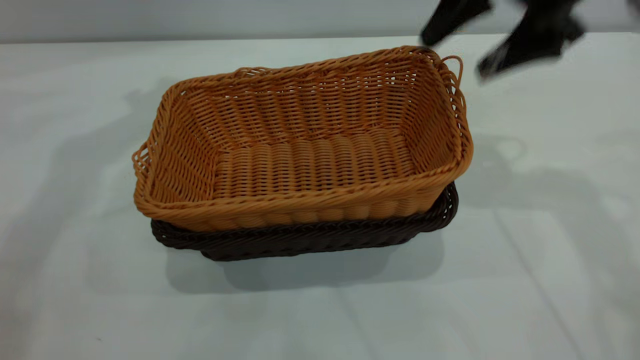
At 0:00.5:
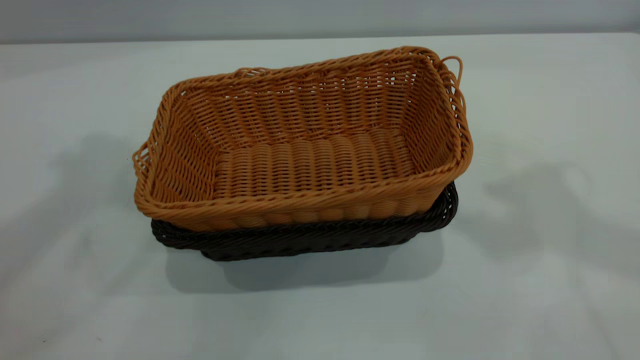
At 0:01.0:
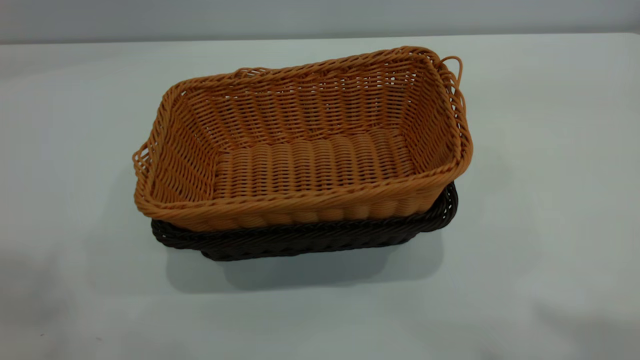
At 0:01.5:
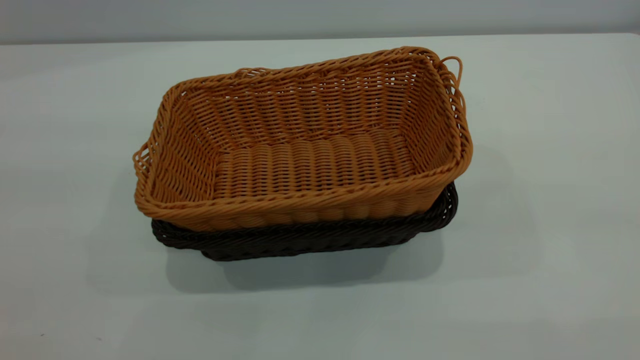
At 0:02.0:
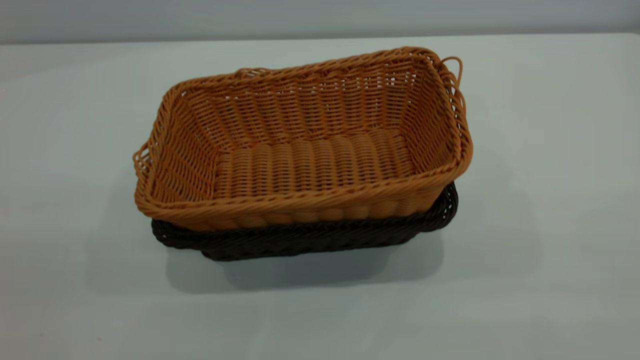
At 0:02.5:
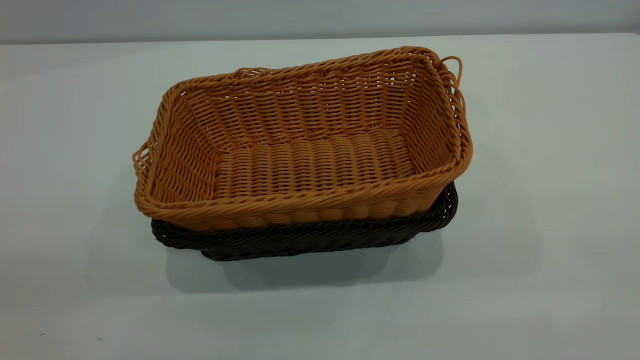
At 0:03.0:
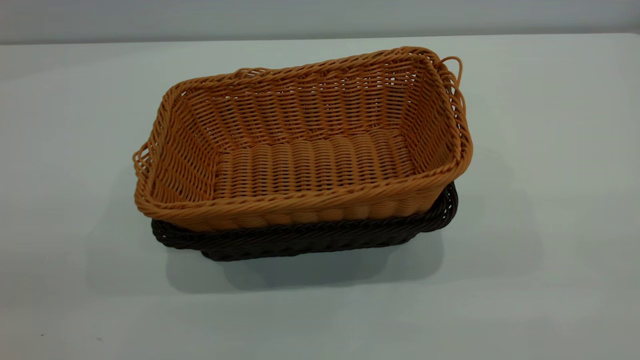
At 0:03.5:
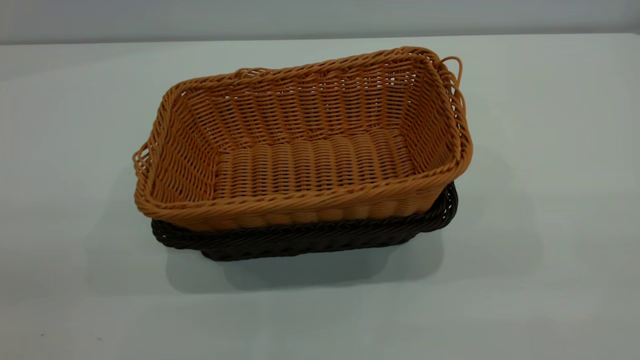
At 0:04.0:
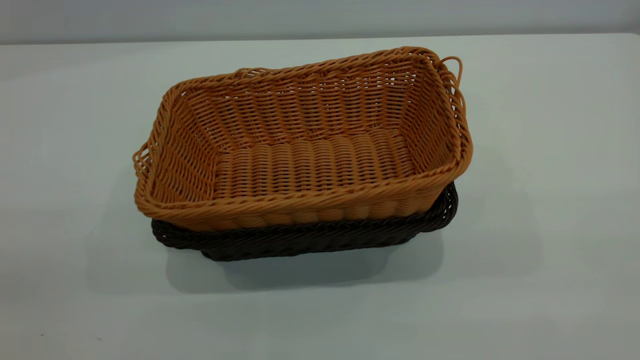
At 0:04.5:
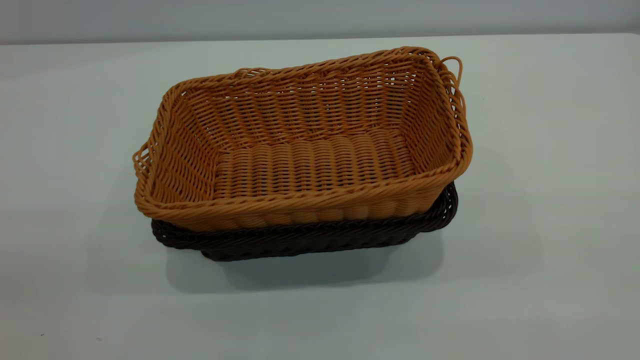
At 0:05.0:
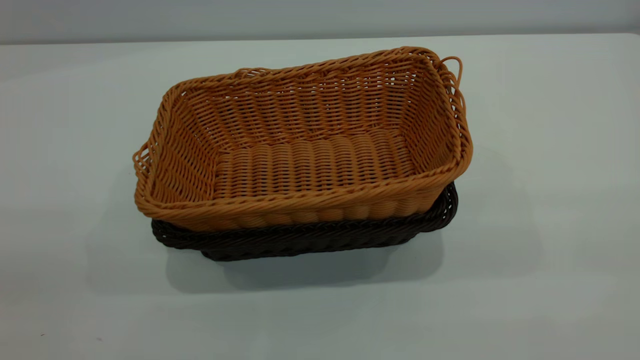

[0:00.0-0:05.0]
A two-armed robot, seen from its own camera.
Task of the whole recording: the left gripper grasp the black basket and place it in the center of the table, the right gripper grasp the brown basket and place it inside the black one.
0:00.0 to 0:02.5: The grippers both shift backward by approximately 40 cm.

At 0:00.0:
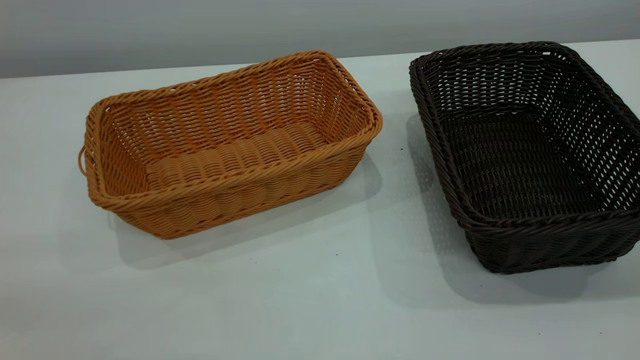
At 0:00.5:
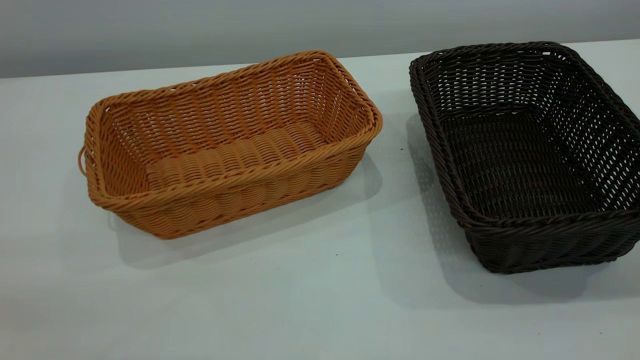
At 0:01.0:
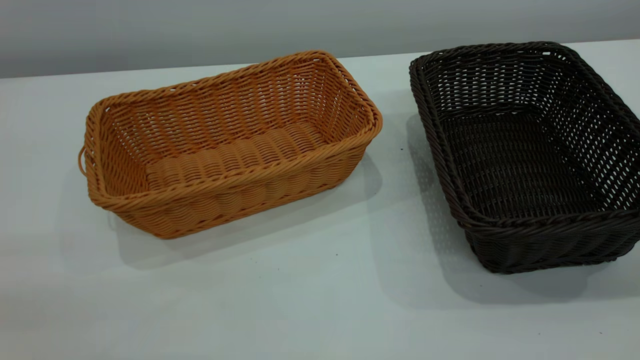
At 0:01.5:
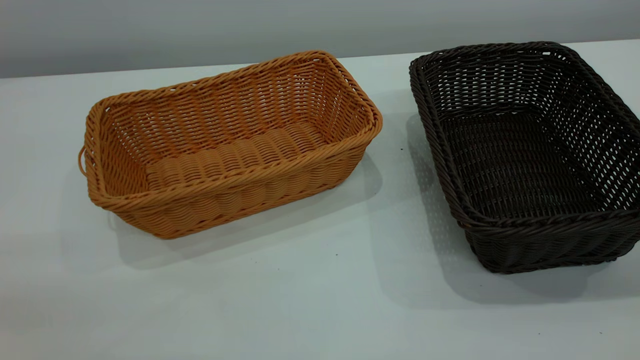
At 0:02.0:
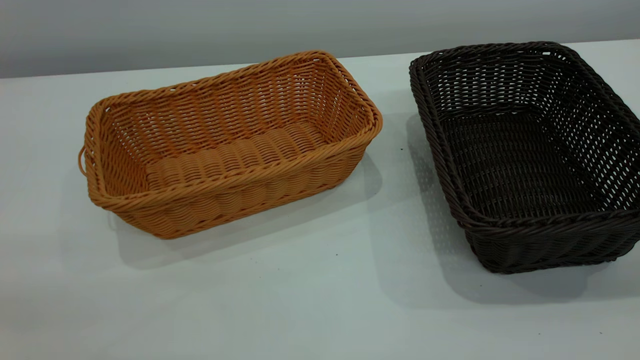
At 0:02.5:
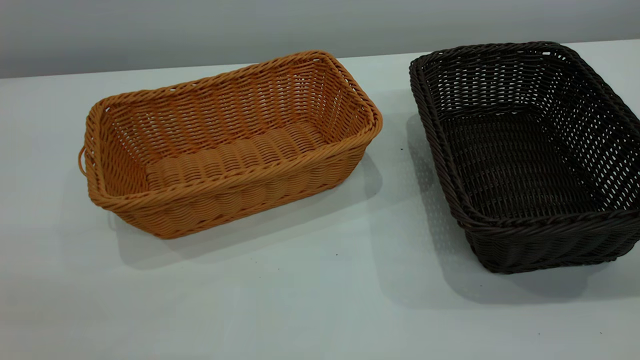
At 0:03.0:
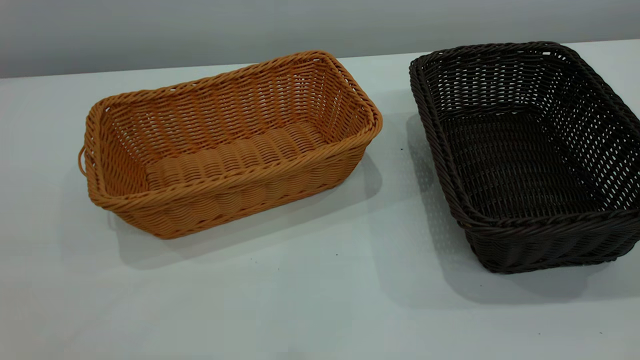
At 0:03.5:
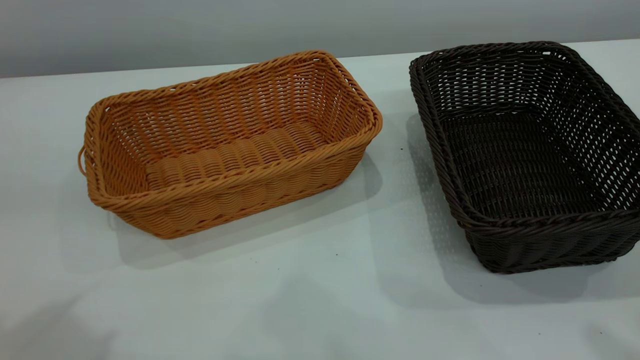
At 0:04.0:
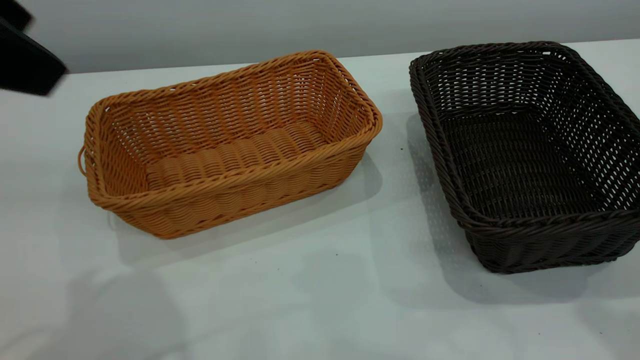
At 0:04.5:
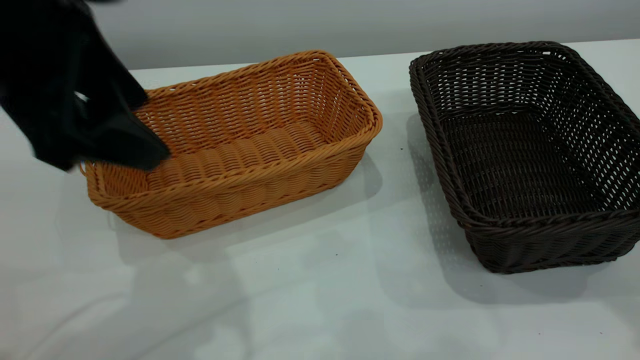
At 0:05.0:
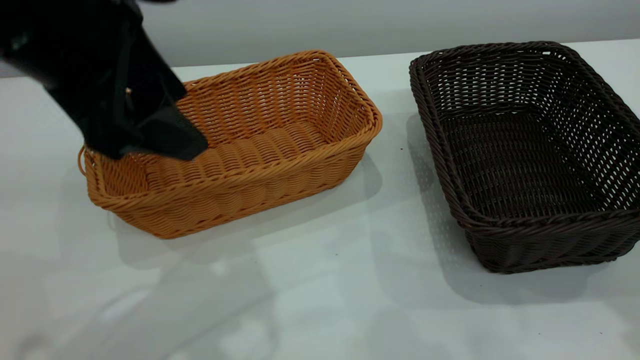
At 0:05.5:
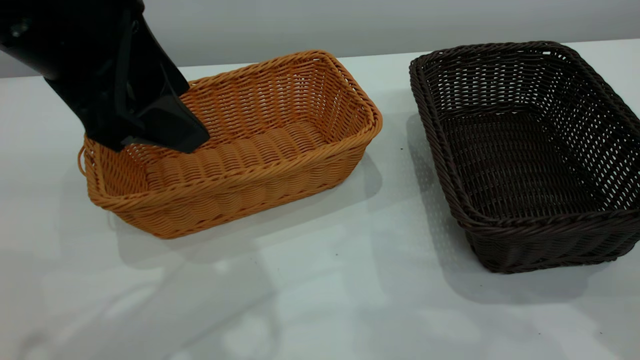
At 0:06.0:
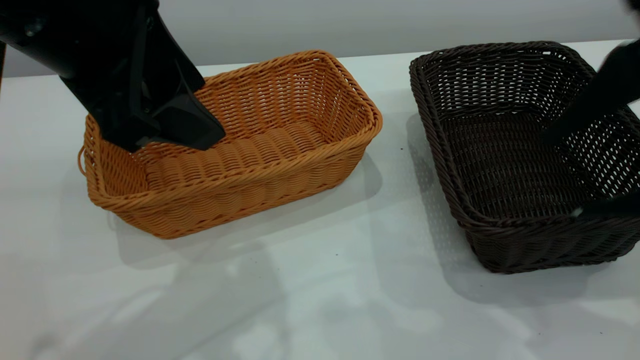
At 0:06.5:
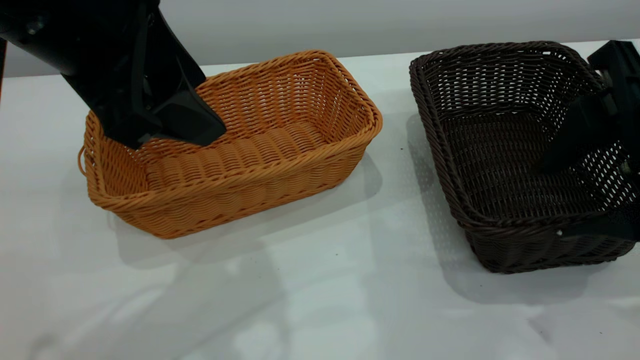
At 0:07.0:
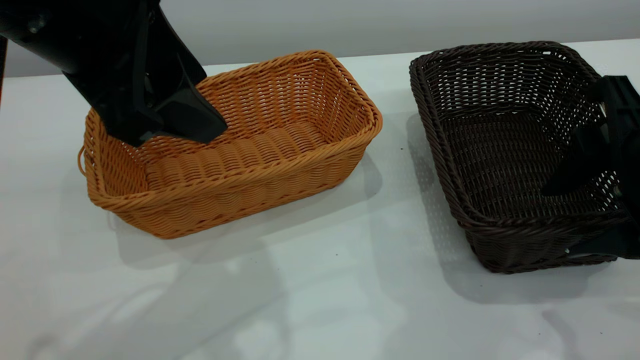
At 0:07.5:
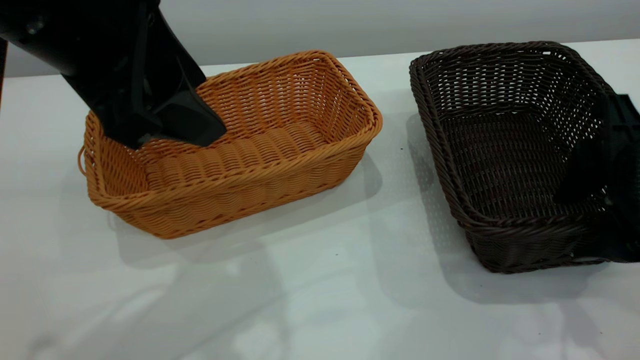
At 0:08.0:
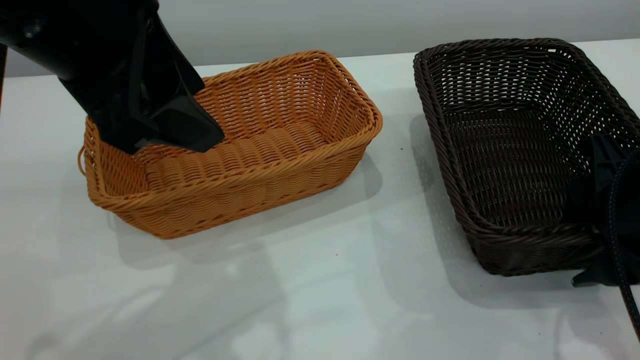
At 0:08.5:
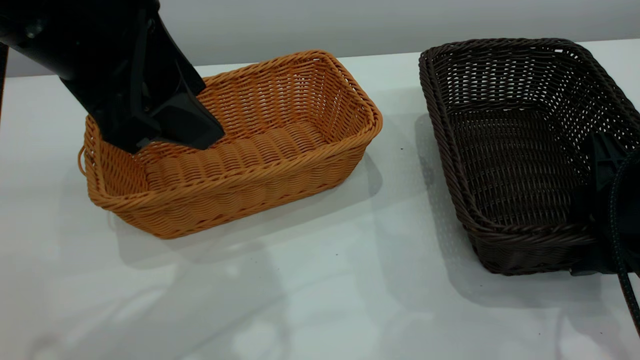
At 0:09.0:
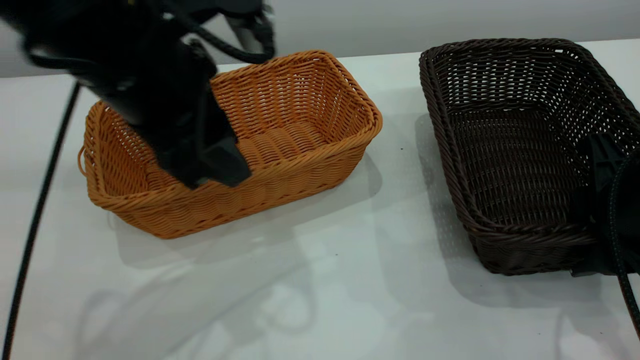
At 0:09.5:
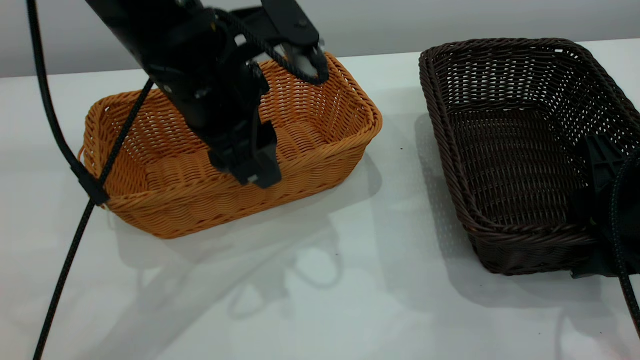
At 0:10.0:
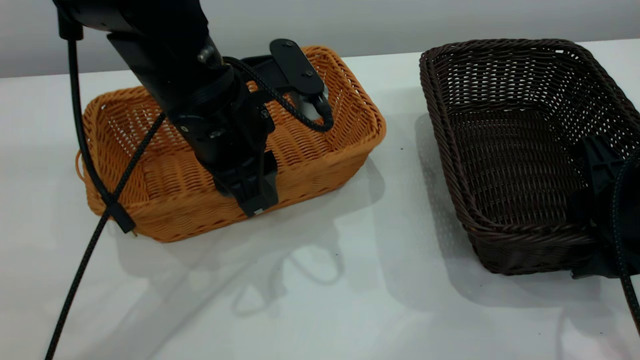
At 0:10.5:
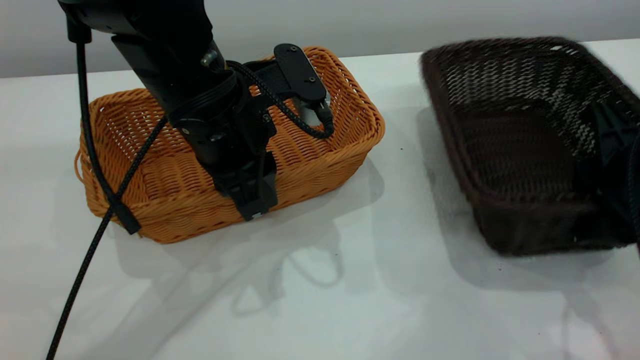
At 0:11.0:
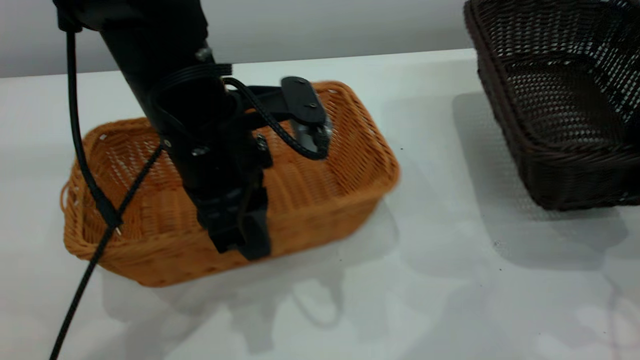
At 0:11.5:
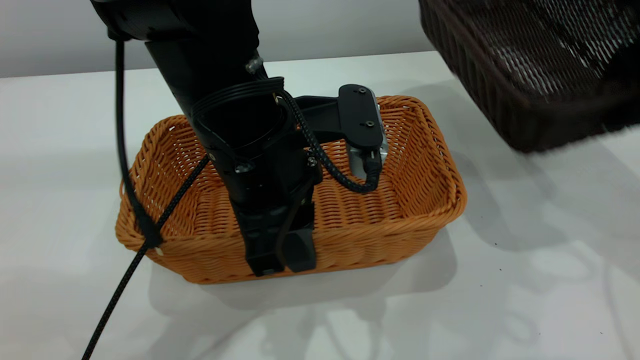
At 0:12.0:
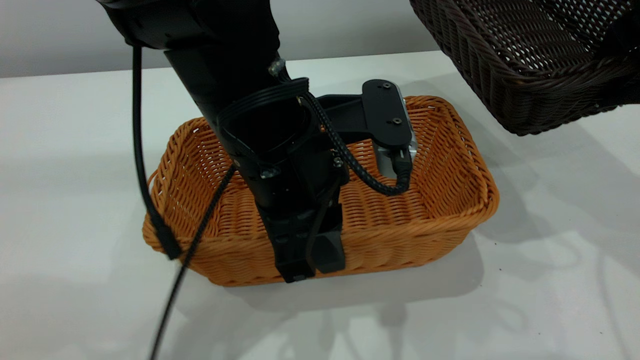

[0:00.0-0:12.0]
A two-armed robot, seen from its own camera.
Task of the whole recording: the left gripper grasp the brown basket and place it in the center of the table, the right gripper grasp the black basket and place it inside the brown one.
Step, 0:00.0 to 0:11.0: Pick up the light basket with the right gripper.
0:00.0 to 0:02.0: Neither gripper changes place.
0:02.0 to 0:04.0: The left gripper is displaced forward and to the right by approximately 20 cm, and opens its fingers.
0:04.0 to 0:06.0: The left gripper moves to the right and downward, some 10 cm, while the right gripper travels downward by roughly 15 cm.
0:06.0 to 0:08.0: The right gripper shifts approximately 10 cm downward.
0:08.0 to 0:10.0: The left gripper heads downward and forward, covering approximately 15 cm, and closes its fingers.
0:10.0 to 0:12.0: The right gripper goes approximately 10 cm upward and forward, while the left gripper shifts roughly 10 cm backward and to the right.

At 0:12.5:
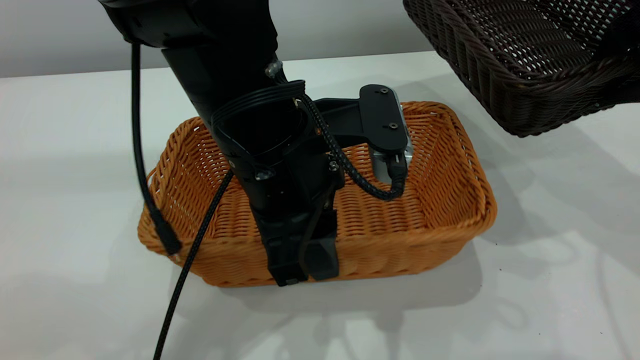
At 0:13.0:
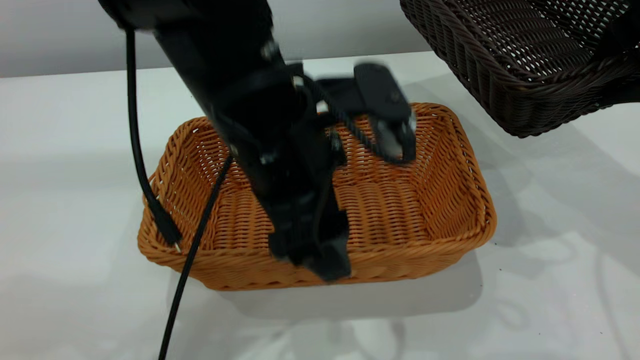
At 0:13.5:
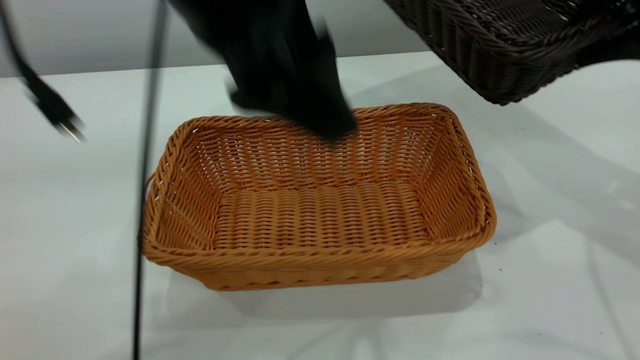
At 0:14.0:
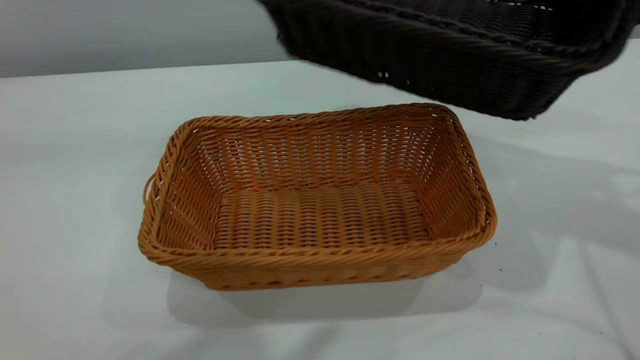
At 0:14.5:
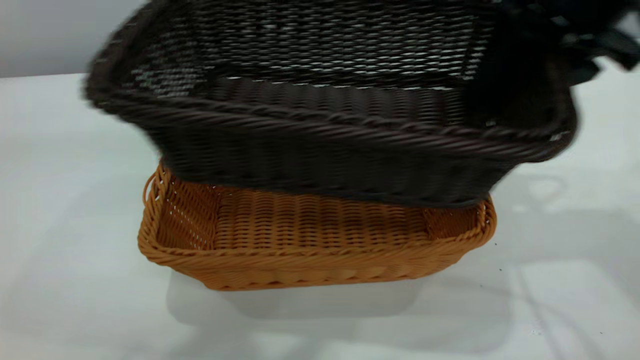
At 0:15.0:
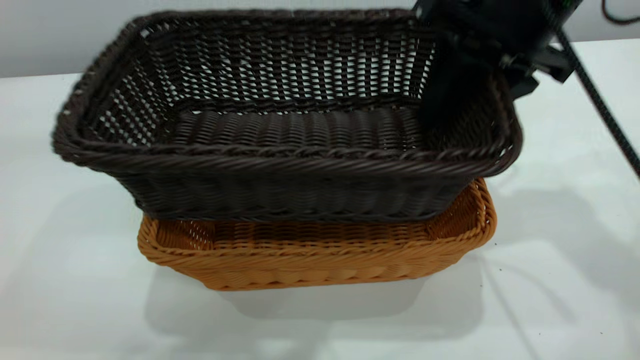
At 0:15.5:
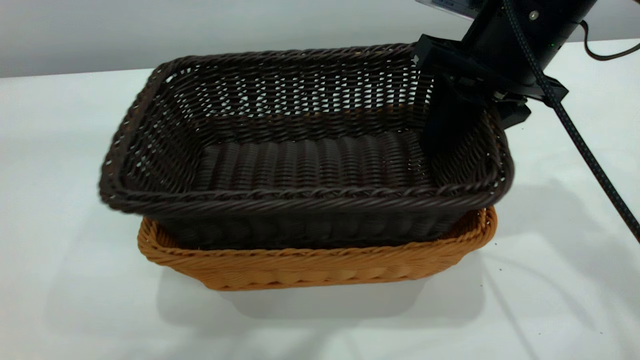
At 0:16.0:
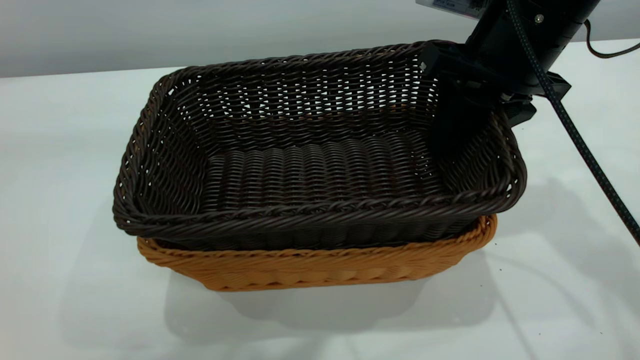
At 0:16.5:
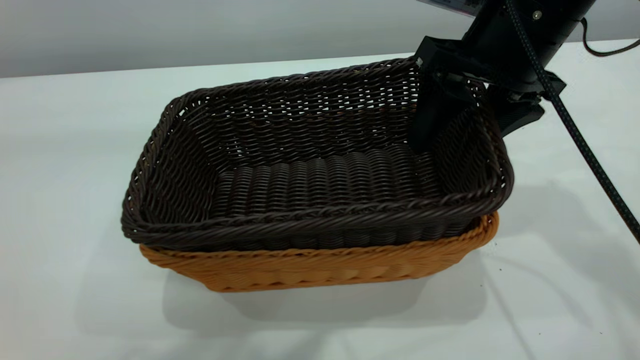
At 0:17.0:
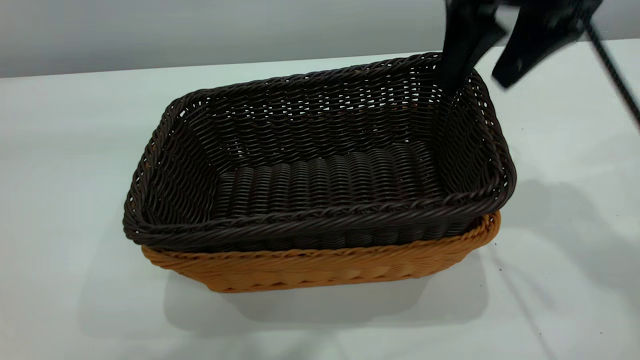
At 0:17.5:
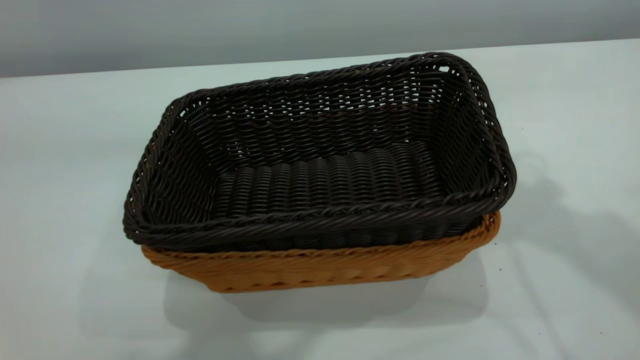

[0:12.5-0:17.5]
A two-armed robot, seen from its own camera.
Task of the whole recording: the left gripper grasp the brown basket and place it in the center of the table, the right gripper grasp the black basket and place it inside the brown one.
Step, 0:13.5 to 0:17.0: Place the dark basket on top of the light basket.
0:12.5 to 0:15.0: The right gripper shifts approximately 10 cm to the left, while the left gripper is displaced upward by approximately 30 cm, and opens up.
0:15.0 to 0:17.5: The left gripper closes, while the right gripper is displaced upward by approximately 15 cm, and opens, then closes again.
